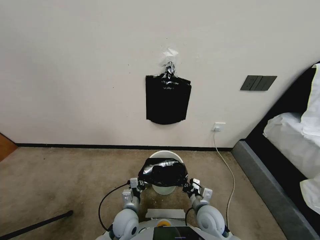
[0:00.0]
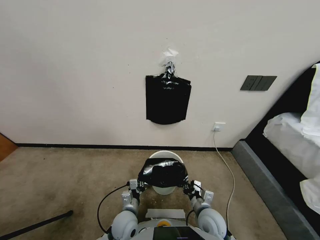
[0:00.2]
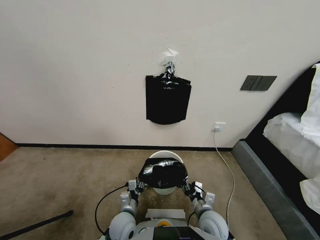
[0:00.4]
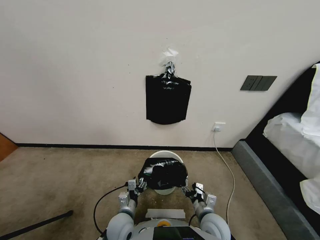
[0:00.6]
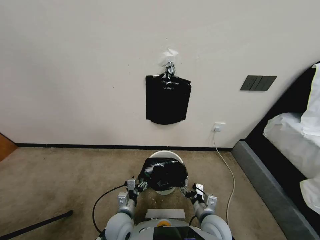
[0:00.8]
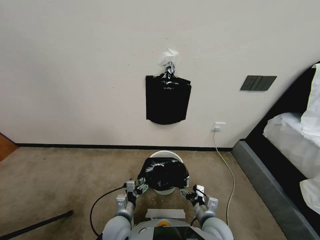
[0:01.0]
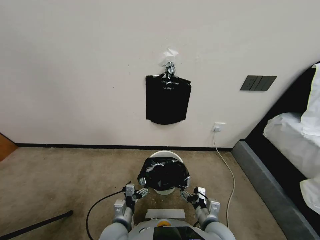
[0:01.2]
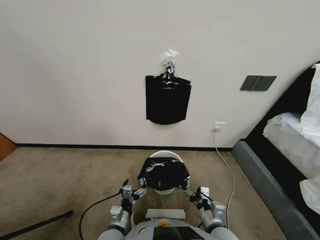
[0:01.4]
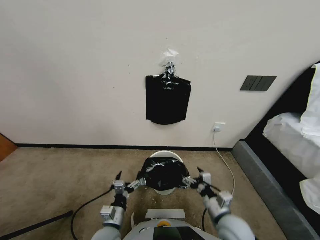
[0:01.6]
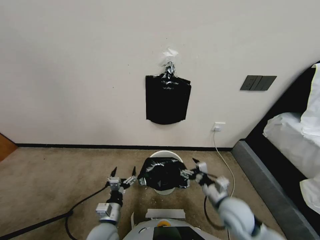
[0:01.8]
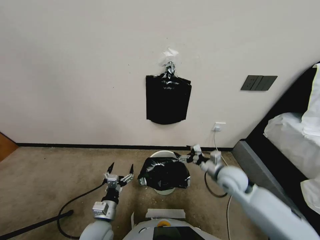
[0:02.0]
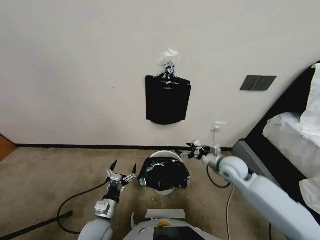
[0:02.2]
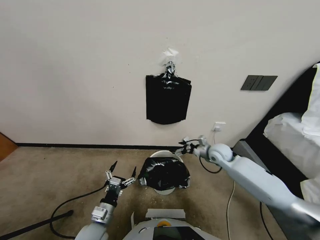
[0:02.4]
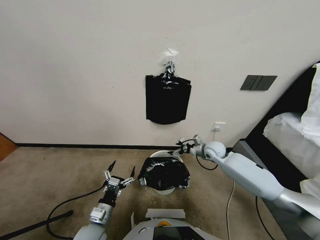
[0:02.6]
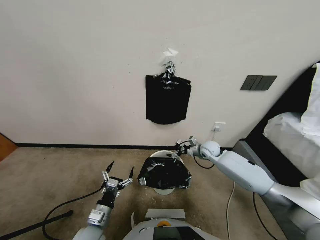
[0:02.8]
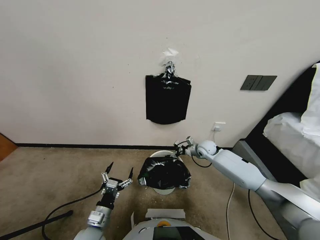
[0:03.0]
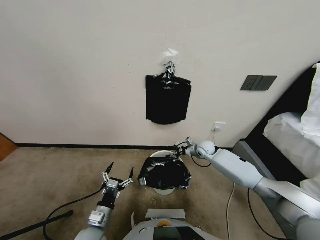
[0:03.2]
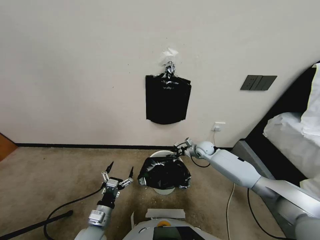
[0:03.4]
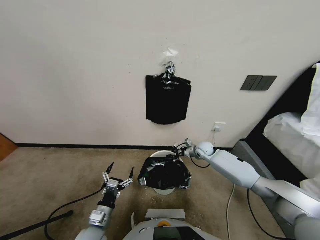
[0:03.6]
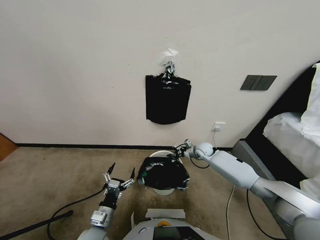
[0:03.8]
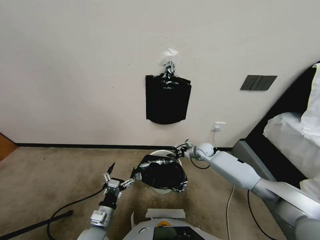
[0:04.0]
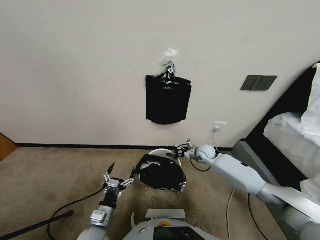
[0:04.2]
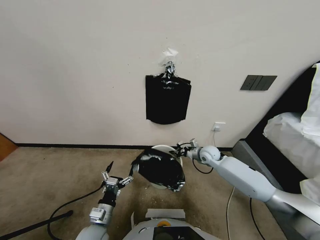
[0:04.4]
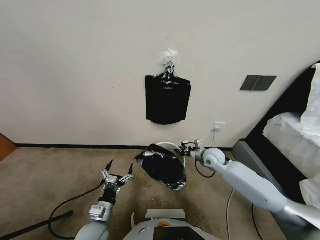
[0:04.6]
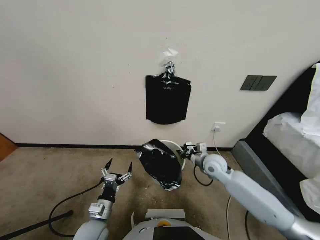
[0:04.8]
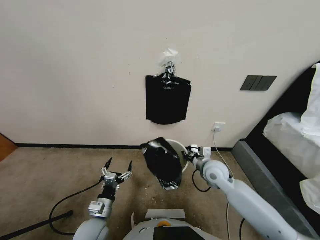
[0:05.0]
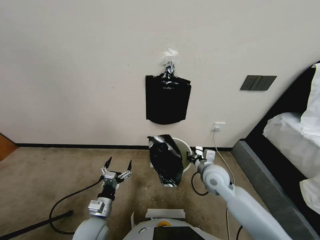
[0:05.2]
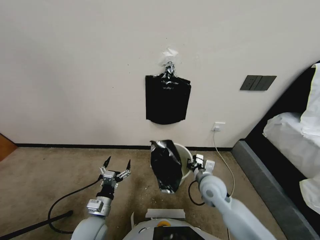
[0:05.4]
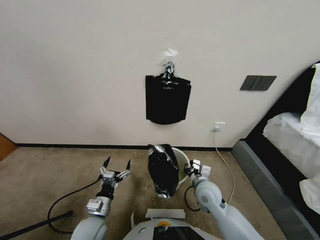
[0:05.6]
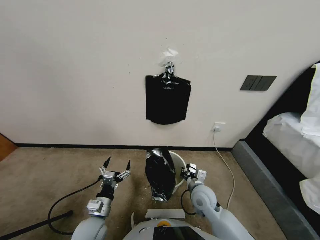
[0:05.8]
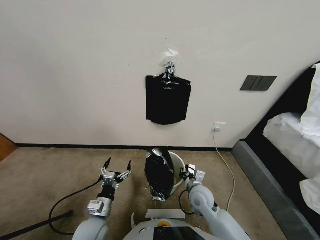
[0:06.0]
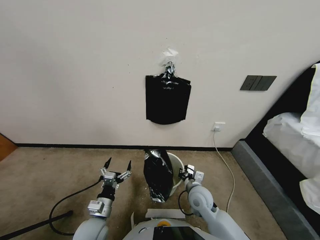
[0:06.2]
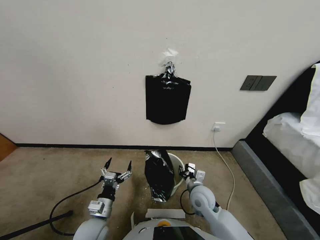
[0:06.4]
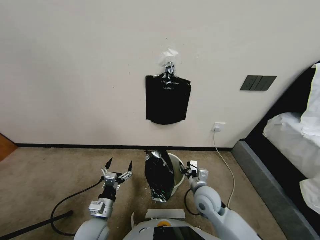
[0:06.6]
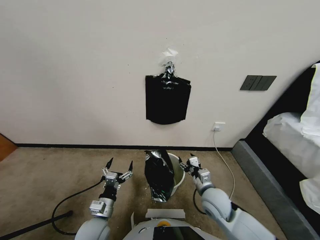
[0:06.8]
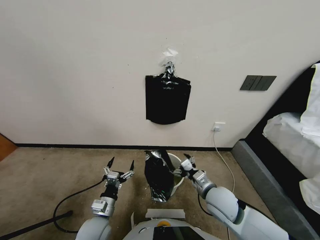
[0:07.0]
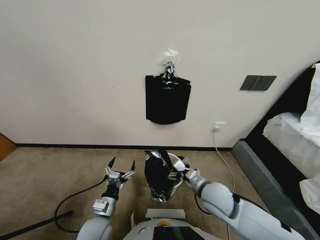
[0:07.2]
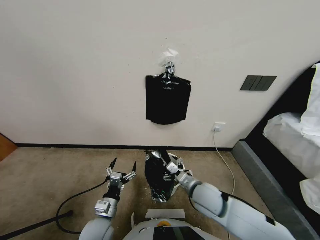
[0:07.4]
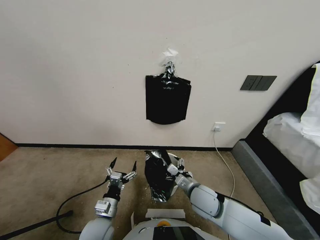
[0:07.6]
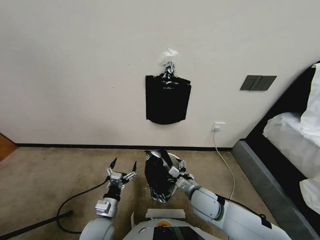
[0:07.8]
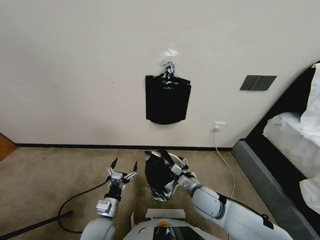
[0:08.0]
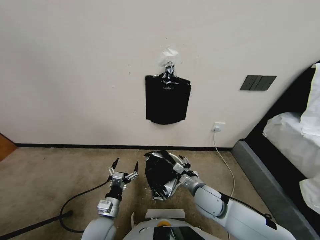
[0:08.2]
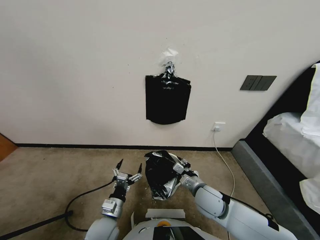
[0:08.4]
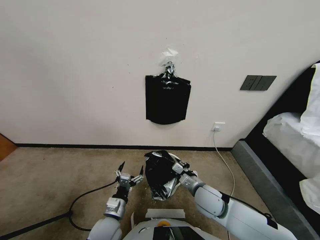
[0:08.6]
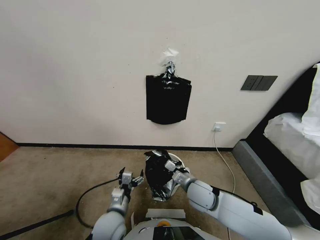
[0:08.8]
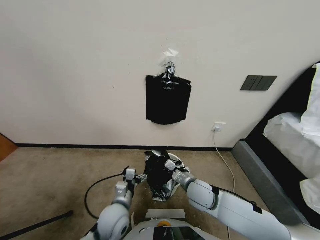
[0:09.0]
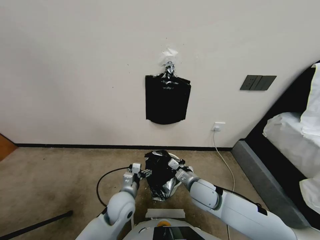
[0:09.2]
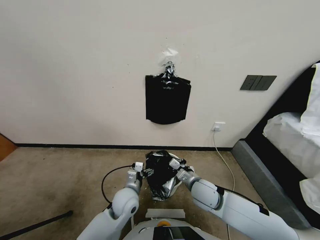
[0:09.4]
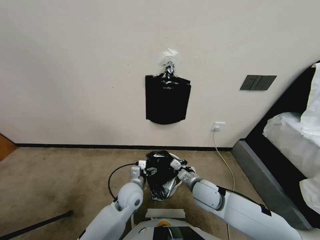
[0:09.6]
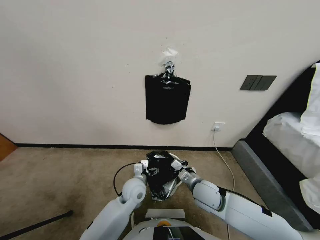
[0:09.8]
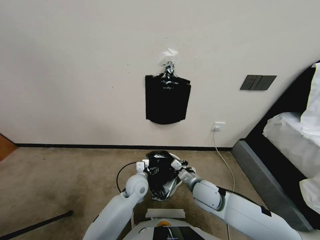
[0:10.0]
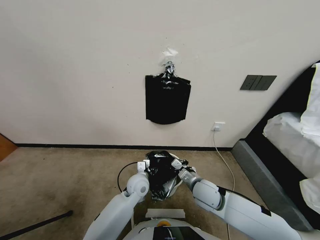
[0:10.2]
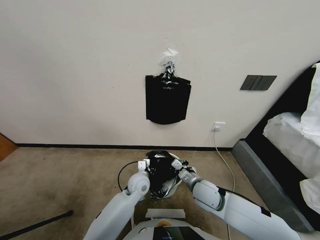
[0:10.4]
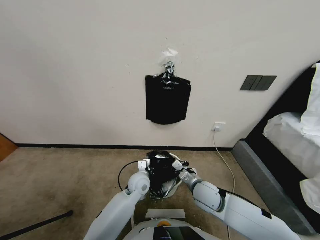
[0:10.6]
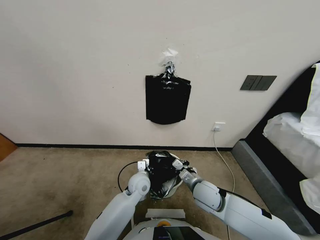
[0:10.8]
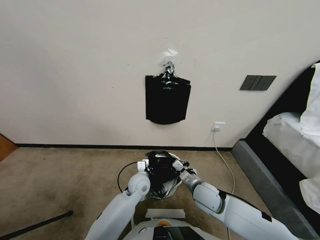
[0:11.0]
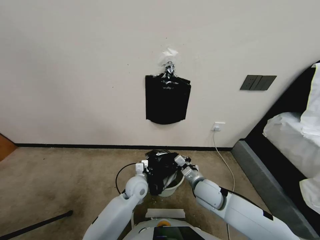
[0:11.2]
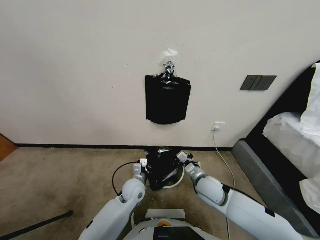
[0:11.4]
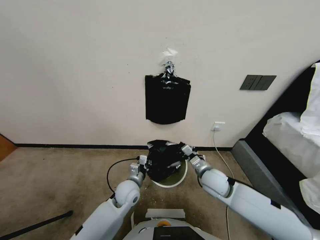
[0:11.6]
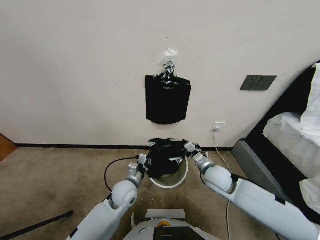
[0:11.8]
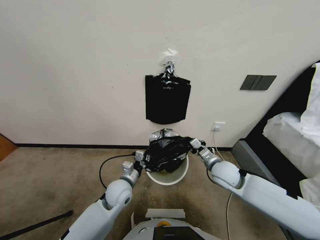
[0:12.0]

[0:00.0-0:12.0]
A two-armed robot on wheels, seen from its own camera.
Task of the whole recording: Place a trash bag onto the trash bin.
0:00.0 to 0:01.6: The left gripper travels to the left by approximately 5 cm, and opens up, while the right gripper moves upward and to the right, approximately 10 cm, and opens its fingers.
0:01.6 to 0:03.0: The right gripper goes some 30 cm forward.
0:03.0 to 0:04.4: The right gripper travels backward by some 5 cm, and closes.
0:04.4 to 0:06.0: The right gripper moves backward and to the left, approximately 20 cm.
0:06.0 to 0:07.6: The right gripper opens up.
0:07.6 to 0:09.0: The right gripper closes, while the left gripper shifts some 10 cm to the right and forward.
0:09.0 to 0:10.4: The left gripper shifts approximately 10 cm forward and to the right, and closes.
0:10.4 to 0:12.0: The right gripper goes some 10 cm to the right, forward and upward. The left gripper is displaced to the left by some 5 cm.

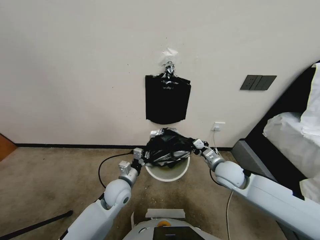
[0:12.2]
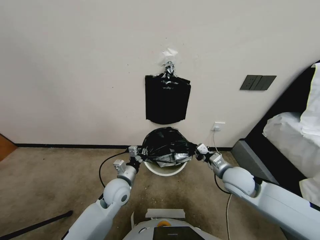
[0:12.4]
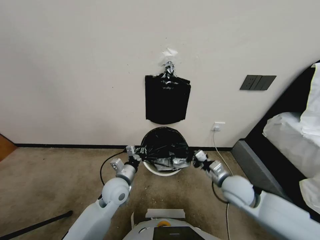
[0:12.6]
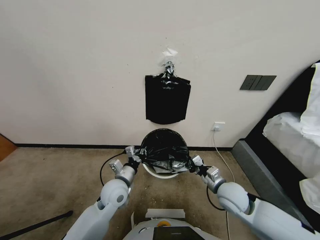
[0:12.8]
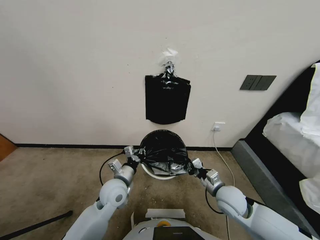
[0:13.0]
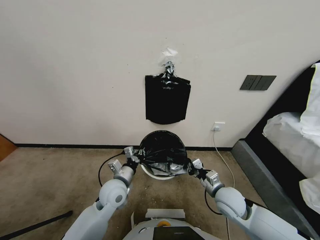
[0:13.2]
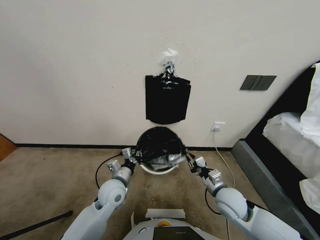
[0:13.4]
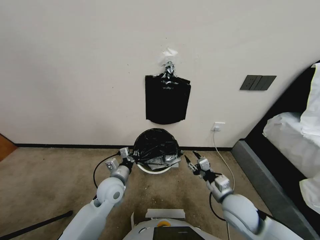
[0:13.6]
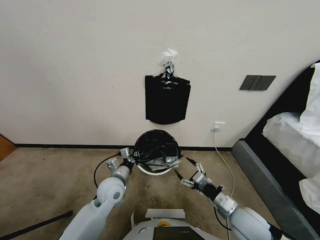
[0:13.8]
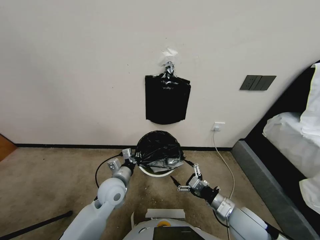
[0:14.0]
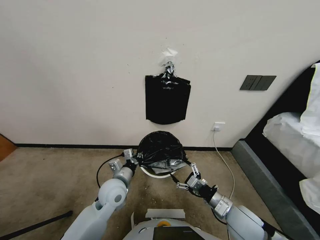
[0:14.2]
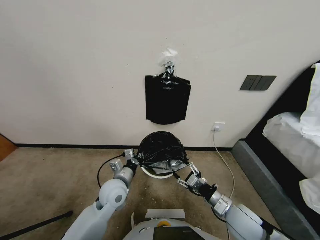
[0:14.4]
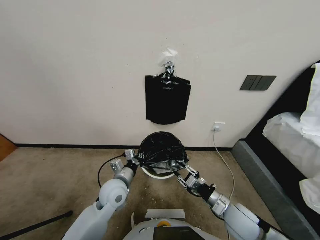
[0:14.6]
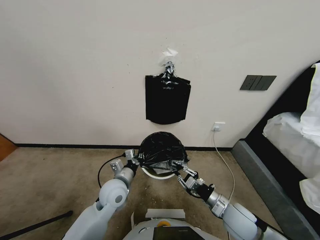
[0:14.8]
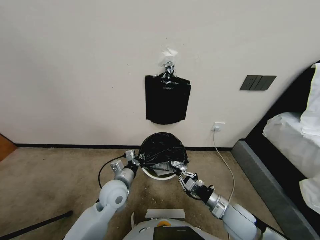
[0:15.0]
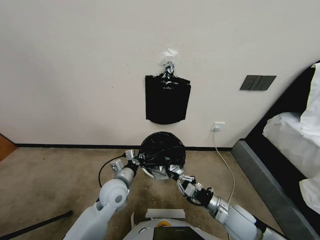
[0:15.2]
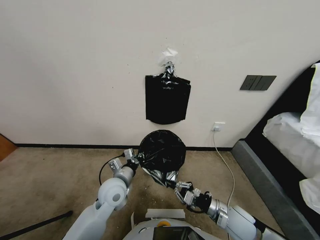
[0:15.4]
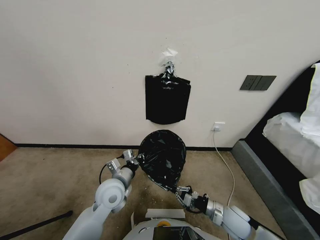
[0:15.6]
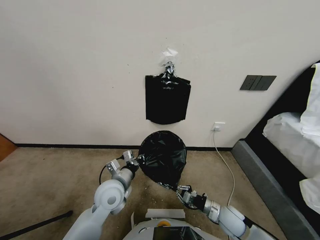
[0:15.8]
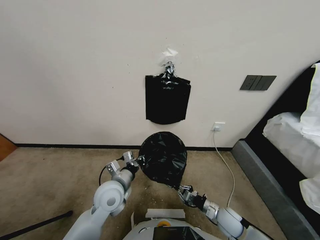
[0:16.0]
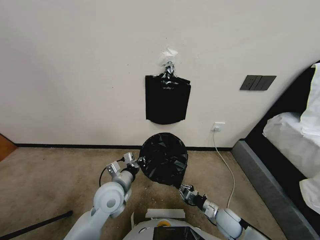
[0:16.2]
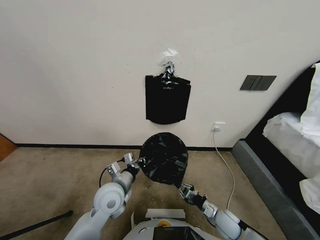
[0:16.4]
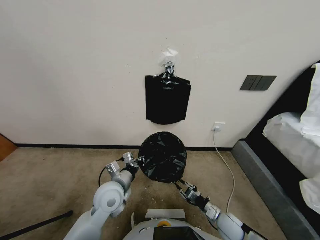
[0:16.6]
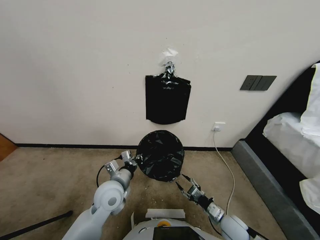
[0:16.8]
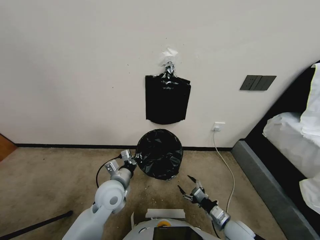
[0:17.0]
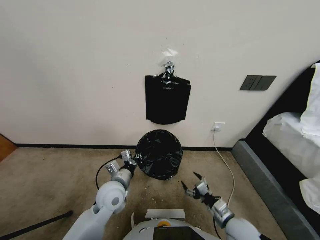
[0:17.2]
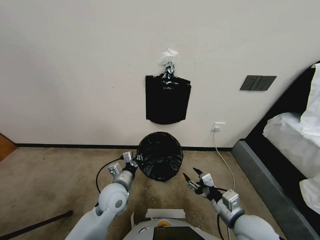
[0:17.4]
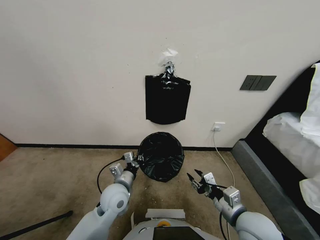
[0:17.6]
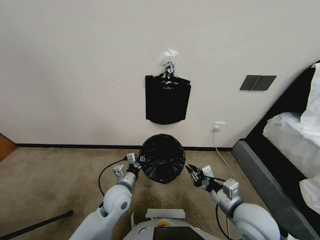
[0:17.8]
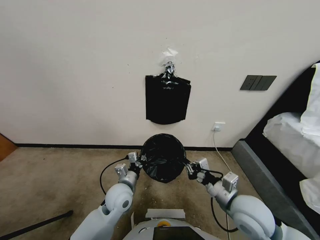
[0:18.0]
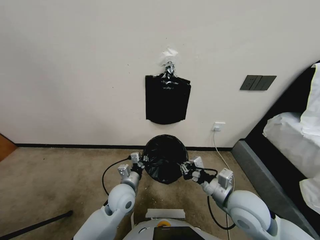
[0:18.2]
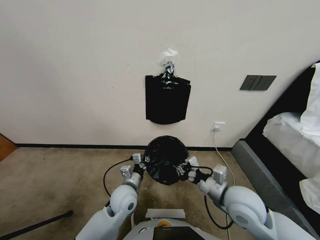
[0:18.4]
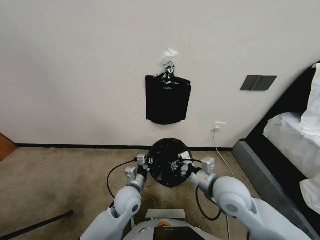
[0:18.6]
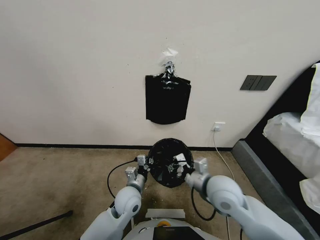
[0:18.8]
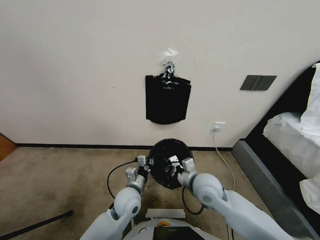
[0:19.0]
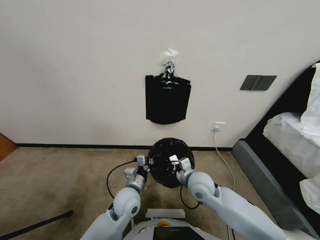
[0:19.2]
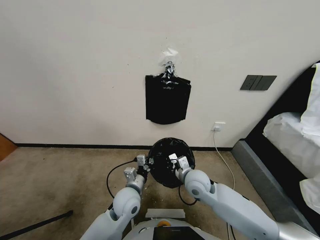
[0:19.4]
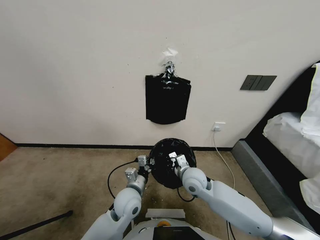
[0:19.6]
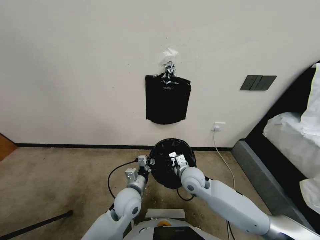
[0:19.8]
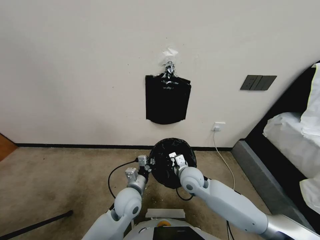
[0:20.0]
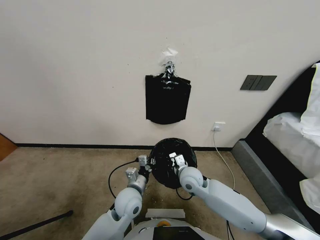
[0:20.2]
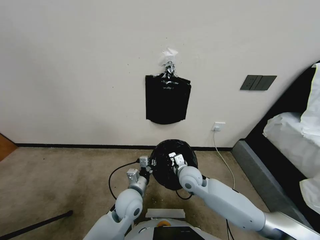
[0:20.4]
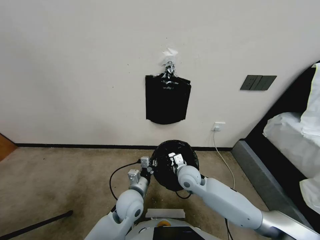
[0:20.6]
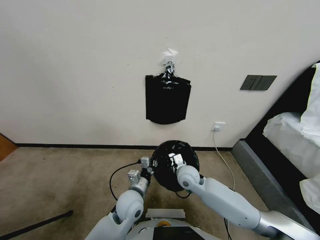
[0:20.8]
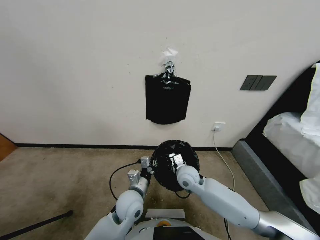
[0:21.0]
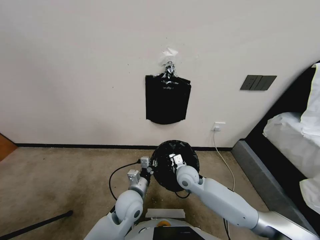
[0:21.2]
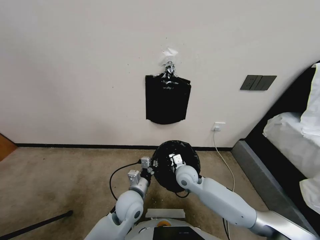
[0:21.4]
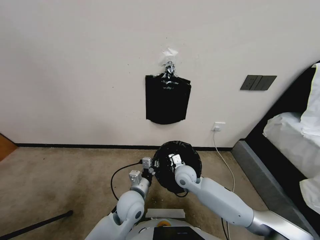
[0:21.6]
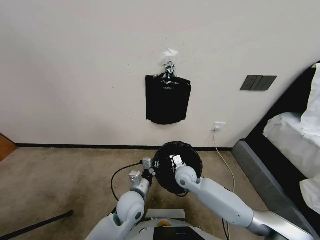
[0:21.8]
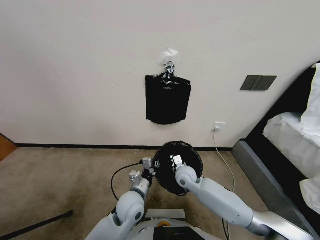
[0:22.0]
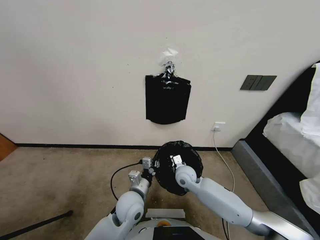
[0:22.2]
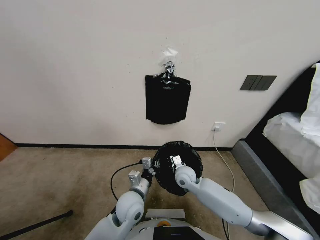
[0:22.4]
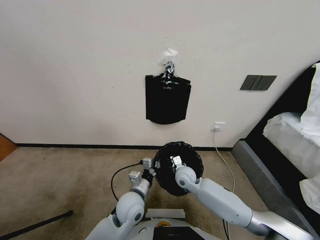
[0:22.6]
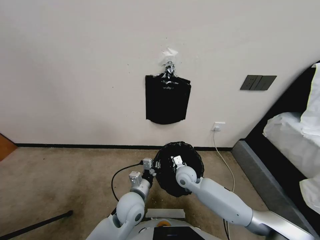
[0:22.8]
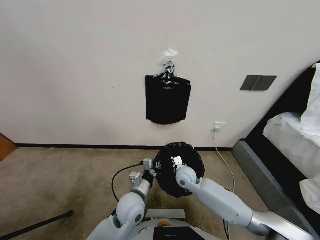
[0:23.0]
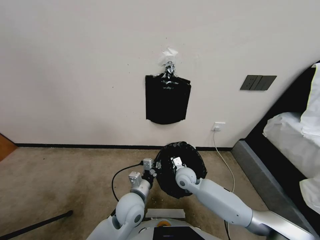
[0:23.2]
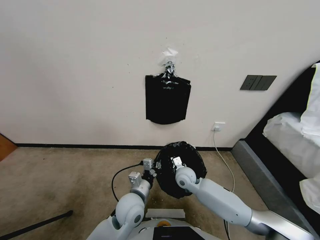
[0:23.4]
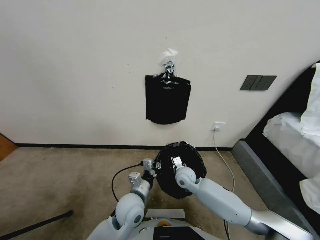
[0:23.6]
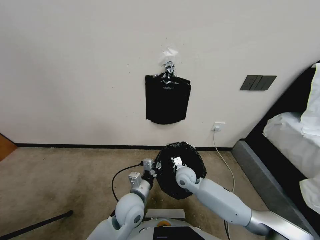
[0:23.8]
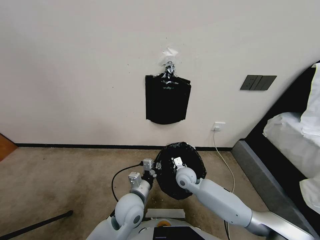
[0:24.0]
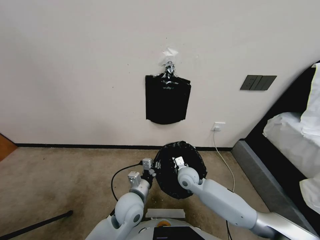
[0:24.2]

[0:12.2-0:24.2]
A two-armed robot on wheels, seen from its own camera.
Task of the whole recording: Place a trash bag onto the trash bin.
0:12.2 to 0:13.8: The right gripper moves backward, some 15 cm, and opens its fingers.
0:13.8 to 0:15.2: The right gripper changes place by about 5 cm, and closes its fingers.
0:15.2 to 0:16.6: The right gripper moves downward, approximately 10 cm, and opens its fingers.
0:16.6 to 0:18.2: The left gripper moves approximately 5 cm; the right gripper shifts approximately 20 cm upward, and closes.
0:18.2 to 0:19.8: The right gripper travels forward, to the left and downward by approximately 15 cm.
0:19.8 to 0:21.2: There are only small adjustments of the grippers.
0:21.2 to 0:24.2: The grippers make only small movements.
